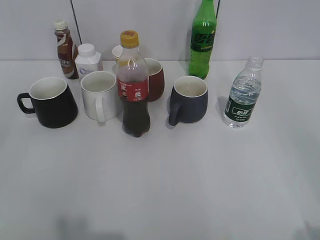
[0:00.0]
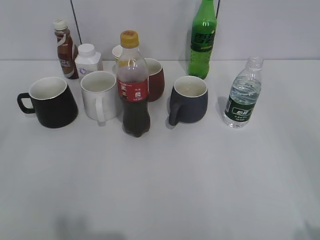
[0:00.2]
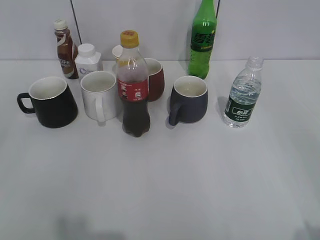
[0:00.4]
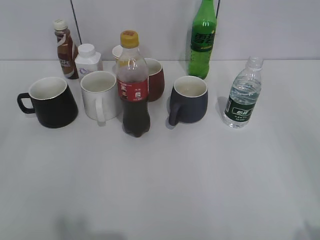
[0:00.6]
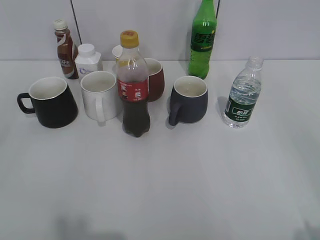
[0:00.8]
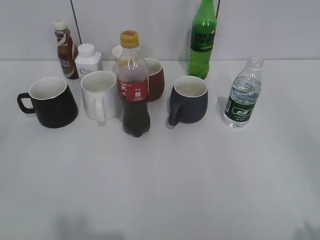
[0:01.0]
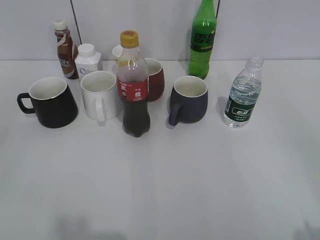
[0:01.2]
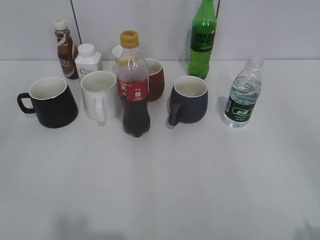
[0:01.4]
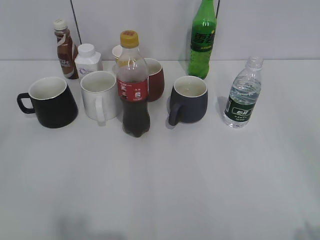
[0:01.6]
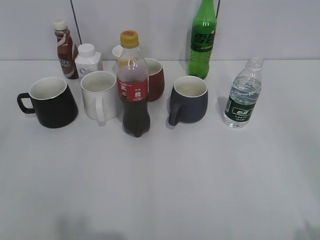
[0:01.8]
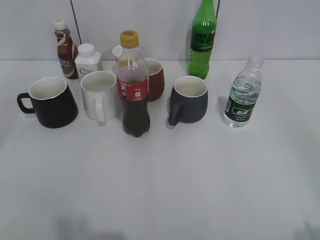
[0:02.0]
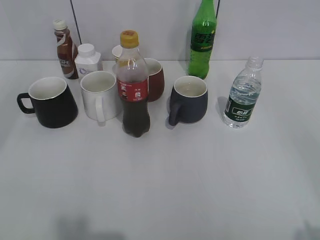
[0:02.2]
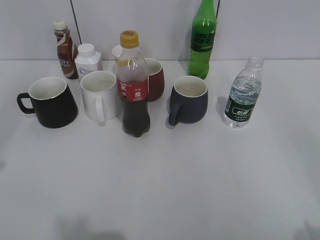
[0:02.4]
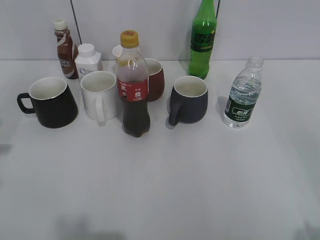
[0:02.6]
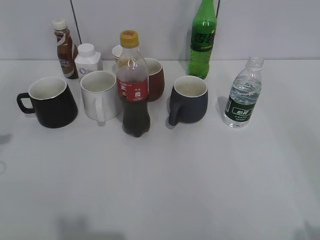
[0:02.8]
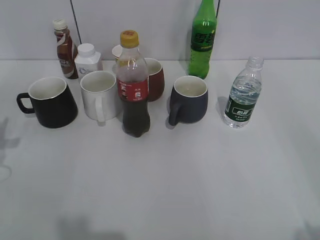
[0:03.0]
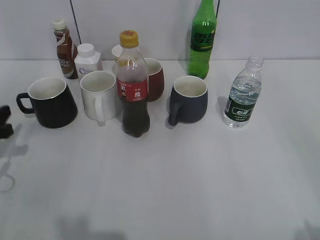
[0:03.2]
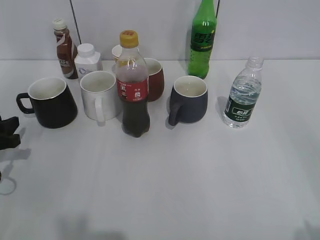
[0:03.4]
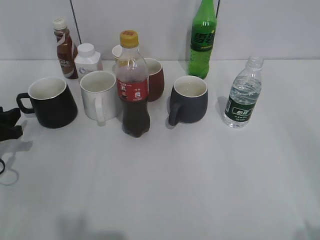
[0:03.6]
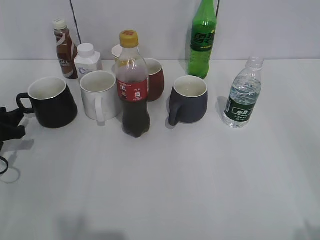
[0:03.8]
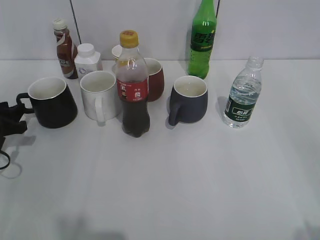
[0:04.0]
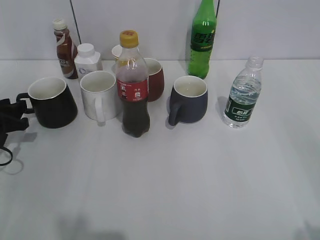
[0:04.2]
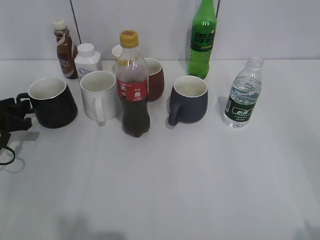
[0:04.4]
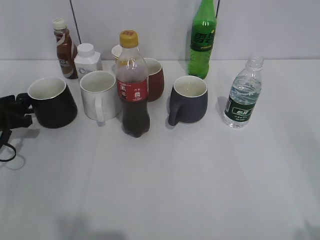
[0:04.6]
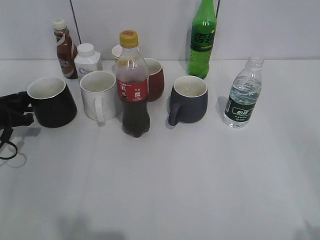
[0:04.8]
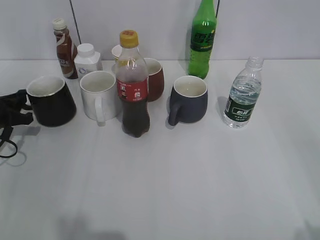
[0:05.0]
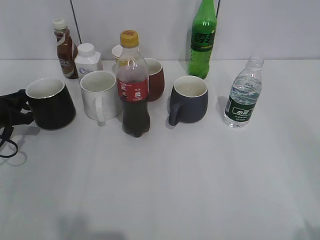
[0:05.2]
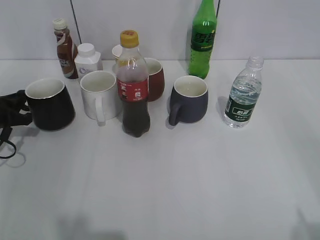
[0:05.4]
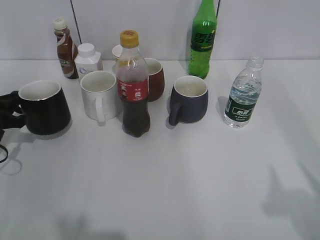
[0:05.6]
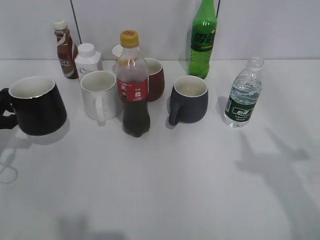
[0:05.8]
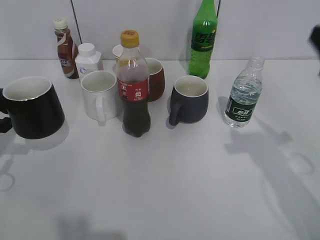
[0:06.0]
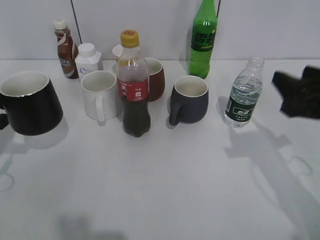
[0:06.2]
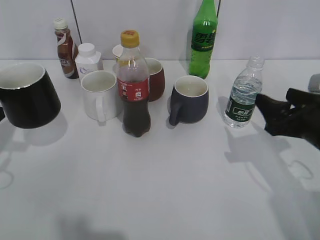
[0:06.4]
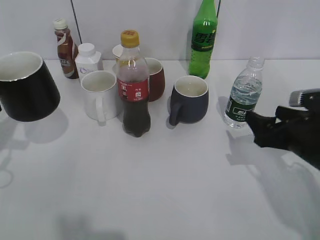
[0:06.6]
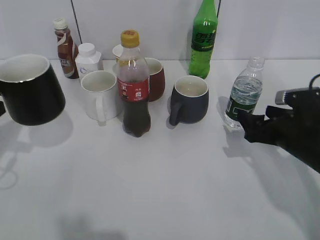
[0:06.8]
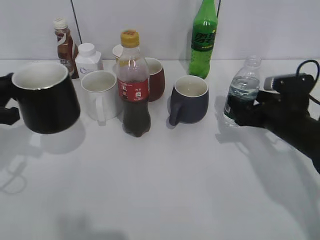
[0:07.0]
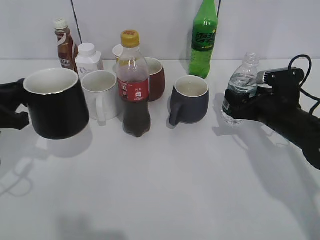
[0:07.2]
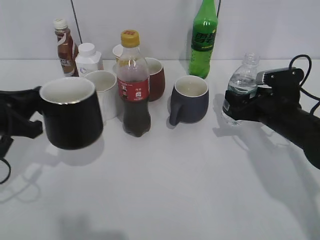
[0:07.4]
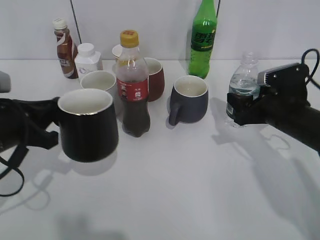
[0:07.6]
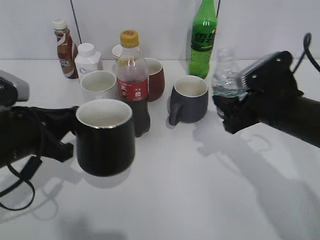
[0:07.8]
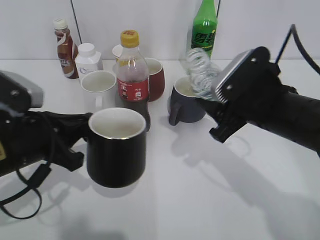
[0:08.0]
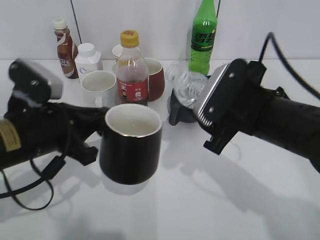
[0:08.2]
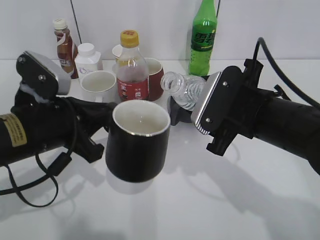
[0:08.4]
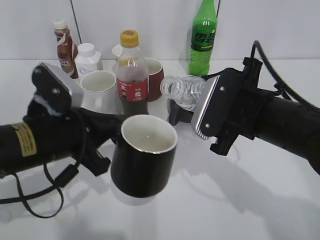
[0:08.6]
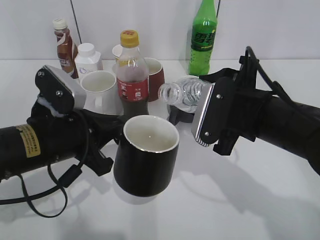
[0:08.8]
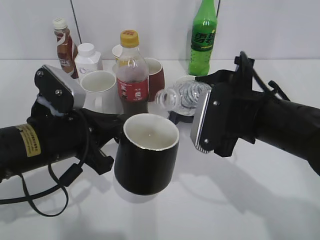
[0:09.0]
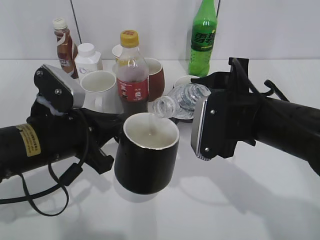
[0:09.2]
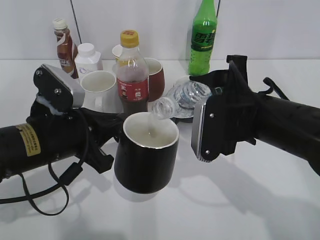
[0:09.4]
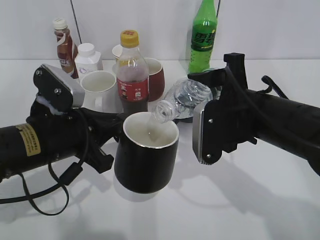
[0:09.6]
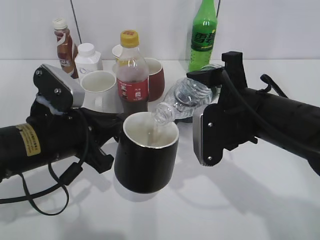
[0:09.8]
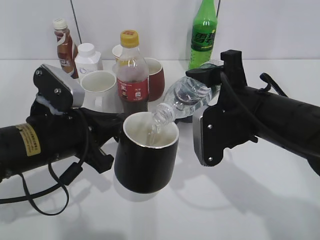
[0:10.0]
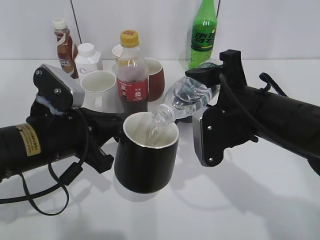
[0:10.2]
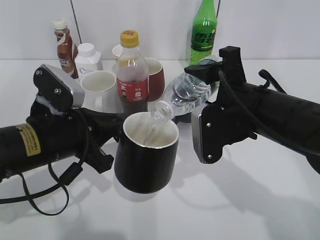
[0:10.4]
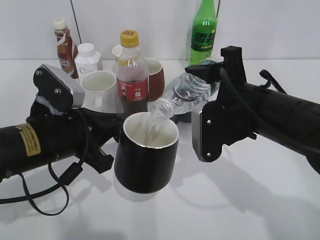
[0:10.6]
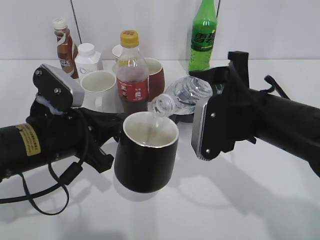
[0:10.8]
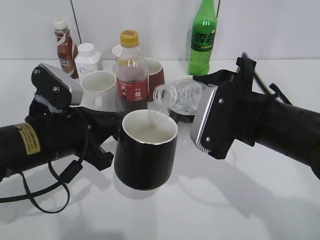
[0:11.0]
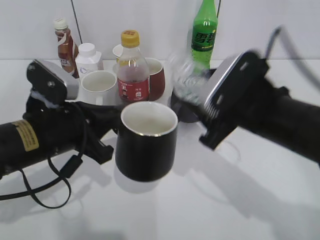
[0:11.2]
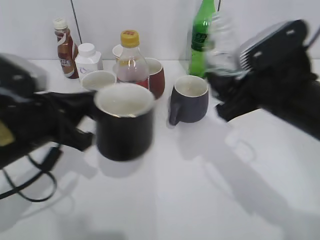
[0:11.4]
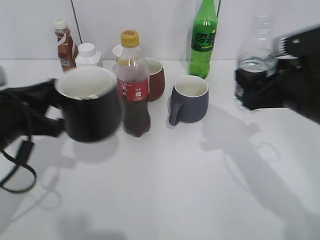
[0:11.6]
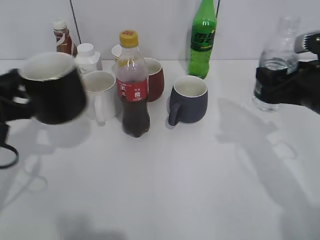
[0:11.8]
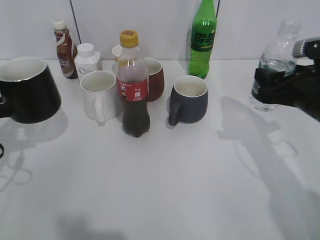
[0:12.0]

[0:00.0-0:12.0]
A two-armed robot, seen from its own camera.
Step, 0:01.8 to 0:05.0: Grasp the black cup with left gripper.
Step, 0:05.2 to 0:06.0: Lift the black cup with left gripper.
0:03.0 to 0:04.4: The left gripper heads downward and forward, covering approximately 10 cm.
0:04.4 to 0:06.0: The left gripper goes roughly 10 cm upward and backward, and closes up.
0:06.0 to 0:07.6: The left gripper travels to the right by some 10 cm.
0:07.6 to 0:09.0: The left gripper goes roughly 10 cm to the right.
0:09.0 to 0:10.4: Neither gripper changes place.
0:10.4 to 0:12.0: The left gripper heads to the left, covering approximately 15 cm.

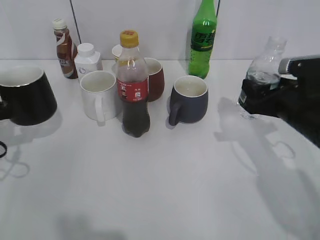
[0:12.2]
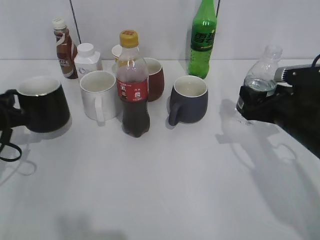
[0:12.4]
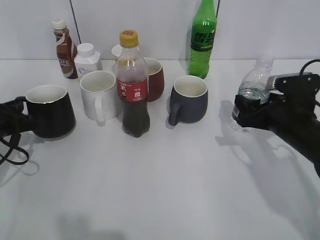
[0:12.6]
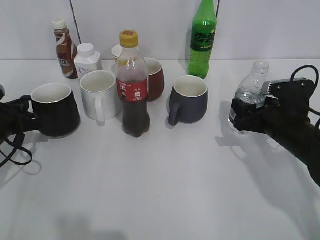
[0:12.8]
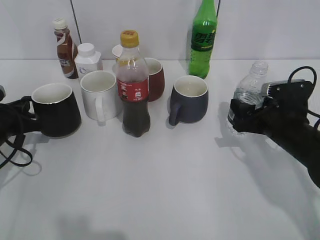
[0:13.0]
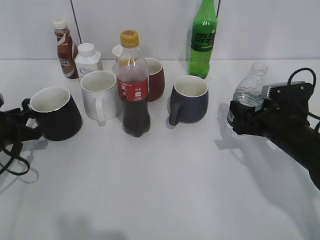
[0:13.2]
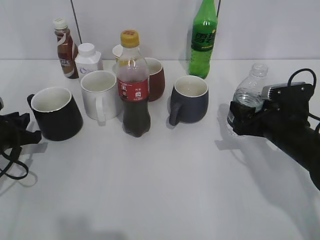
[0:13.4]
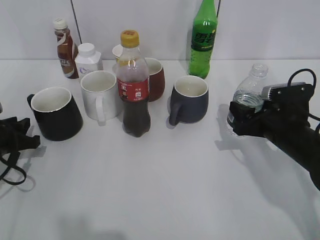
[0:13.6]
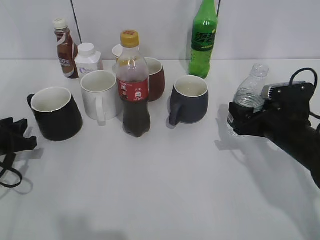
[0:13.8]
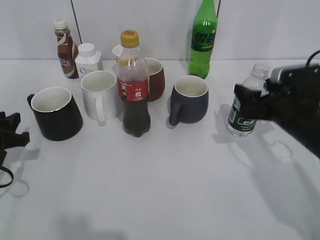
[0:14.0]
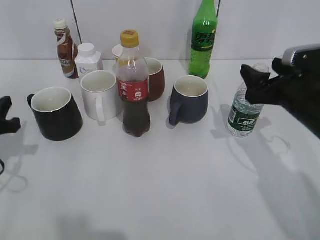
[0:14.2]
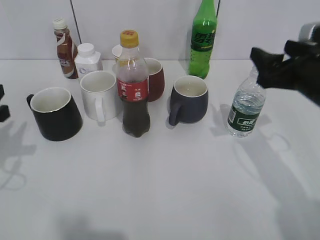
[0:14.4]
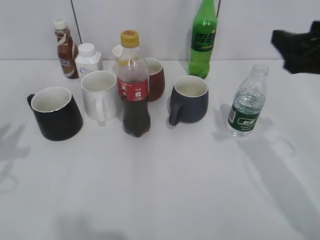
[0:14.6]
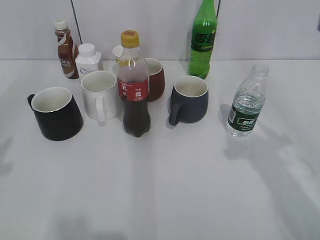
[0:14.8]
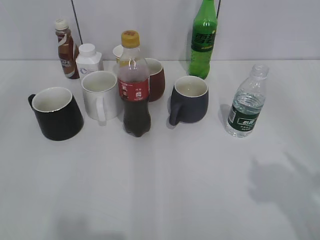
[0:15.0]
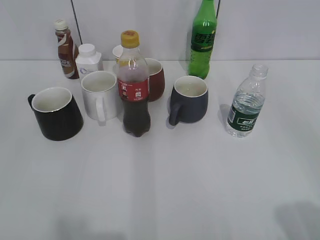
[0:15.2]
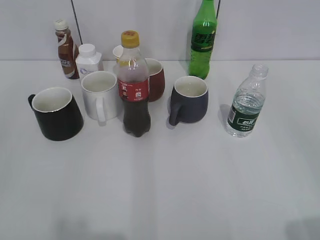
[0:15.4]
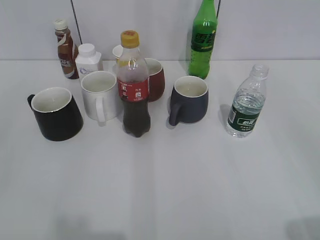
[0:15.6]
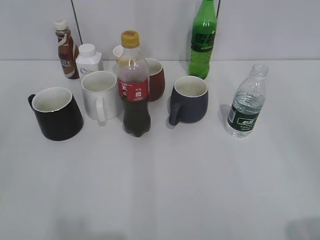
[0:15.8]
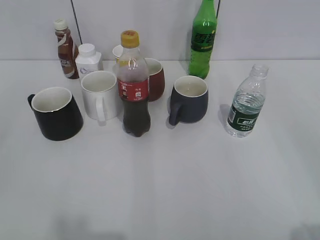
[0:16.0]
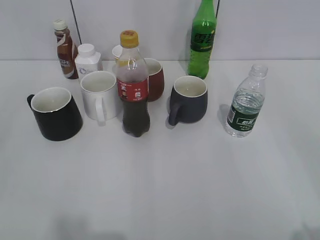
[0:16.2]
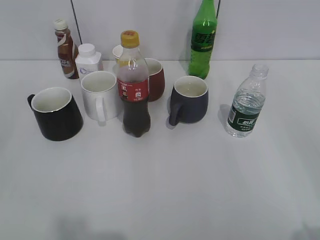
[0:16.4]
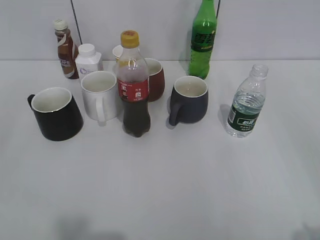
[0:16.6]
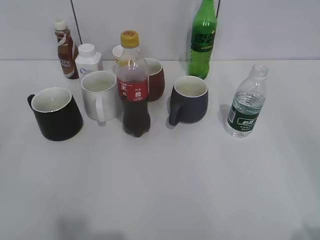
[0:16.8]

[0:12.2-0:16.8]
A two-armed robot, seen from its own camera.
0:12.2 to 0:13.8: The left gripper moves downward, approximately 5 cm, and opens up.
0:13.8 to 0:15.2: The left gripper shifts about 35 cm backward and upward, and opens its fingers.

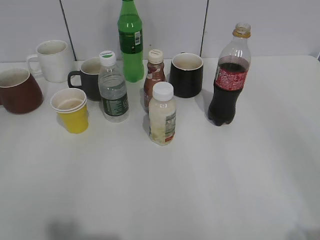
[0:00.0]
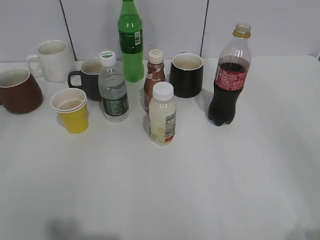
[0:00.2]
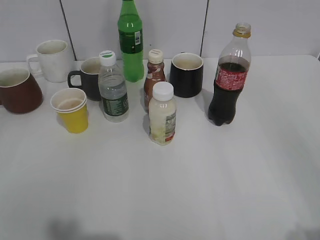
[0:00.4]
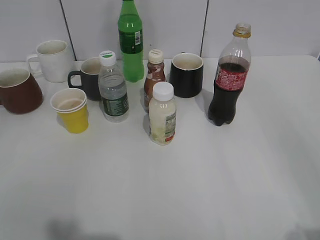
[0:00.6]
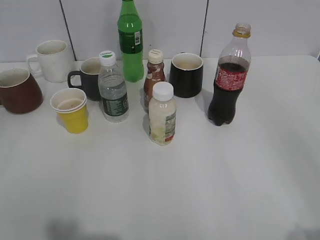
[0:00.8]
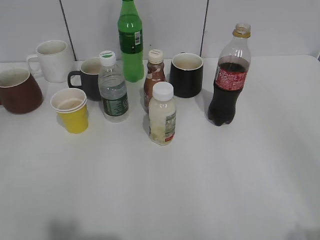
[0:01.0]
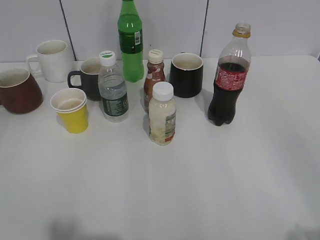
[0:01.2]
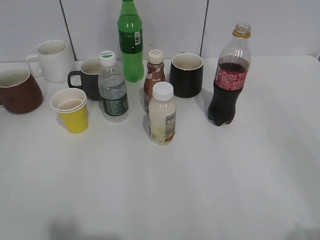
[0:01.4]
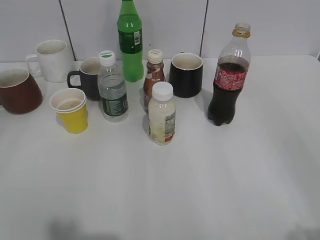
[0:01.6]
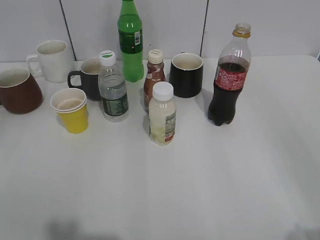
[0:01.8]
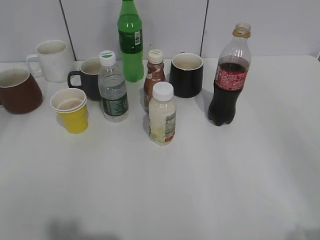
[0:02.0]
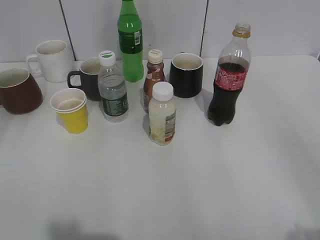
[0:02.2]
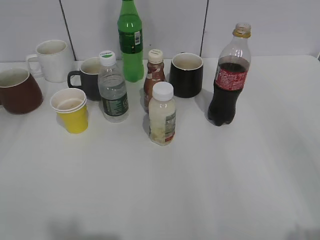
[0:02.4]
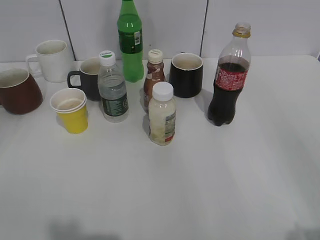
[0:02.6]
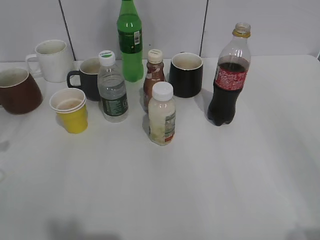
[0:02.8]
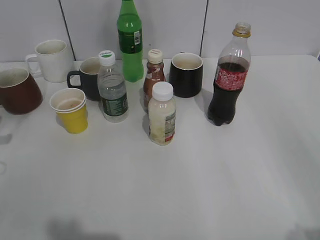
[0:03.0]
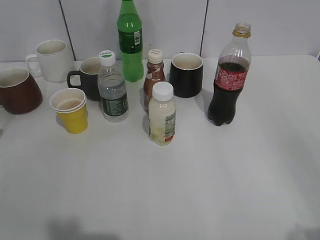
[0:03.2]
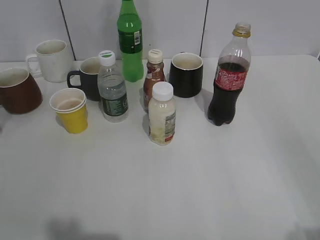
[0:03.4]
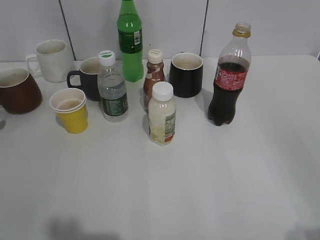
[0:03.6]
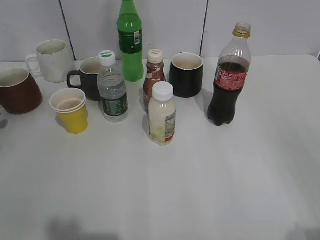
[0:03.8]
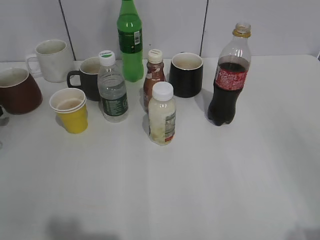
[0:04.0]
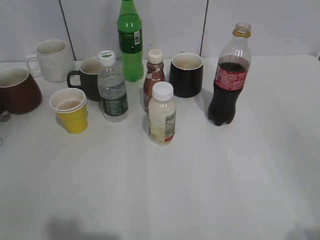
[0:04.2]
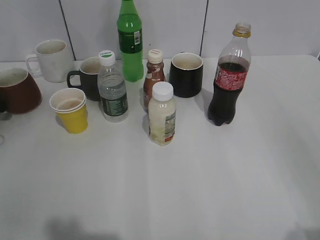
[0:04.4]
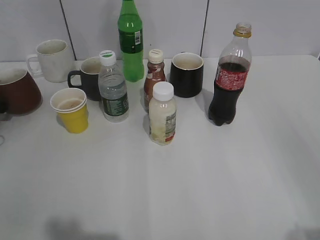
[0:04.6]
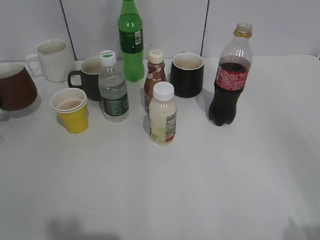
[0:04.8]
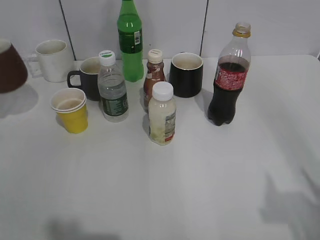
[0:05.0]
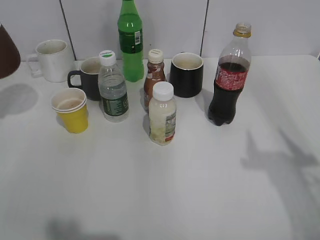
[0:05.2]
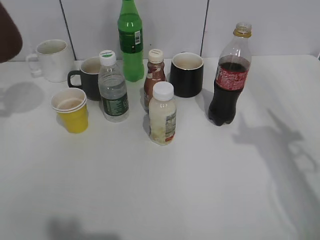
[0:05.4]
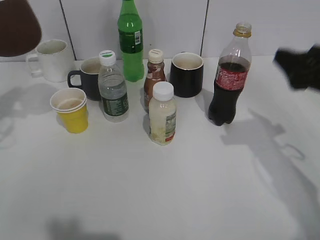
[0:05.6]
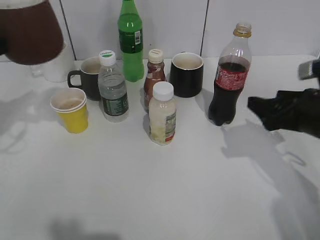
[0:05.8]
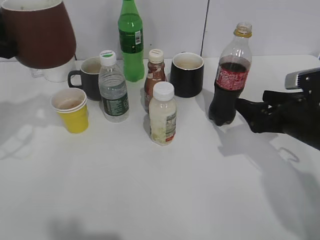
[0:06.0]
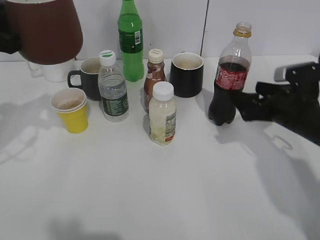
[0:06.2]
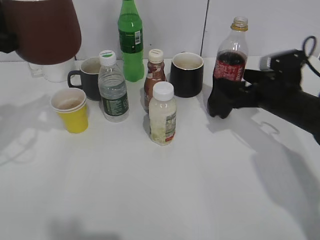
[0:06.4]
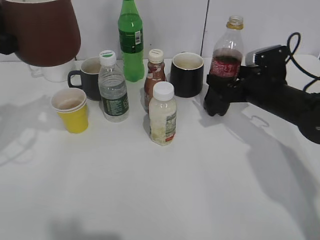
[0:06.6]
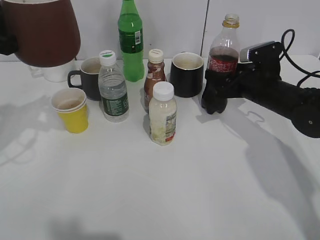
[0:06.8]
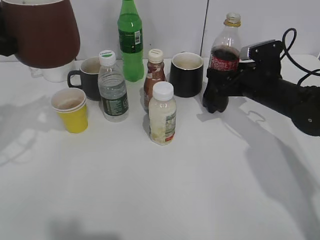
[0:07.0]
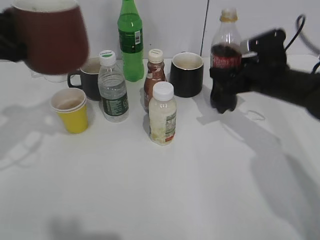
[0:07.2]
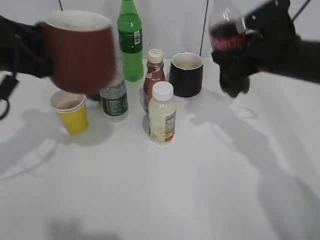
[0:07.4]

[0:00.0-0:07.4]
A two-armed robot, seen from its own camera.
Step, 0:04.6 to 0:04.8: Lift the red cup with left gripper.
Step, 0:05.0 to 0:06.8: Grasp the bottle with cola with right gripper.
0:01.4 to 0:03.0: The left gripper goes some 30 cm forward and downward.
0:04.4 to 0:06.0: The right gripper is displaced forward and downward by about 30 cm. Meanwhile the left gripper goes roughly 25 cm upward, to the right and backward.
0:06.0 to 0:07.4: The right gripper is displaced upward, forward and to the left by about 10 cm, and closes. The left gripper moves to the right, approximately 5 cm.
